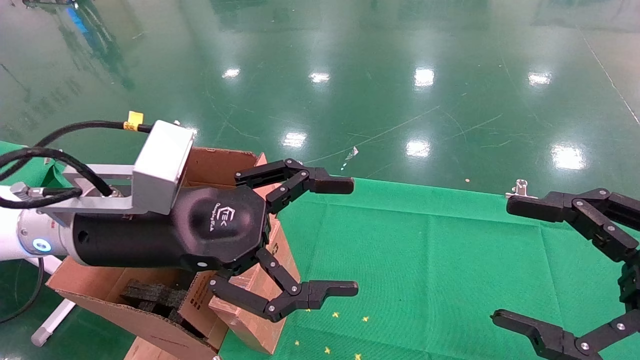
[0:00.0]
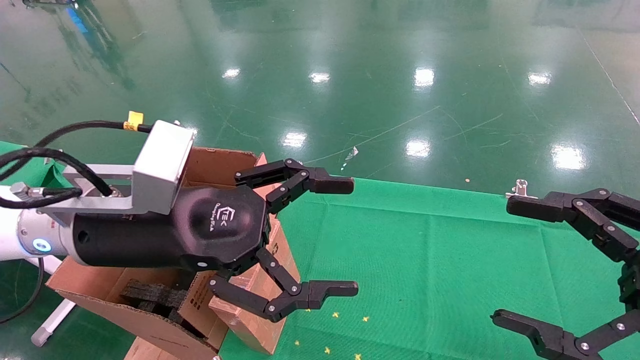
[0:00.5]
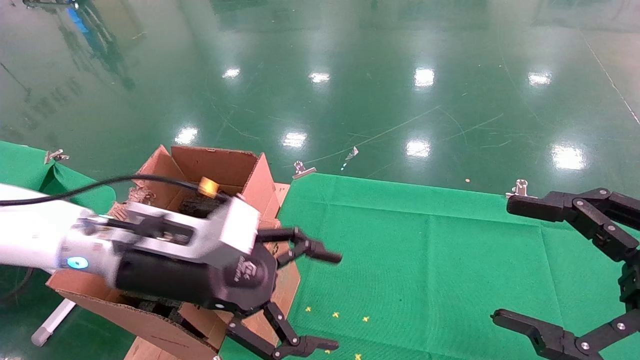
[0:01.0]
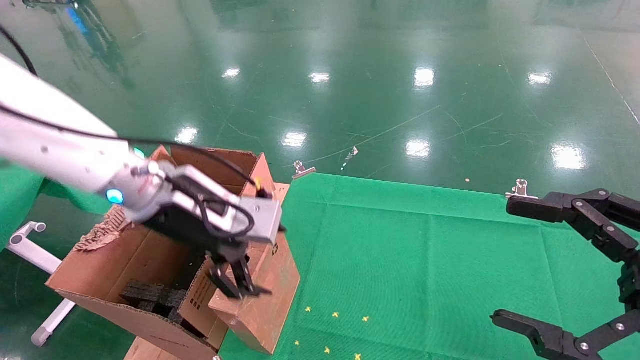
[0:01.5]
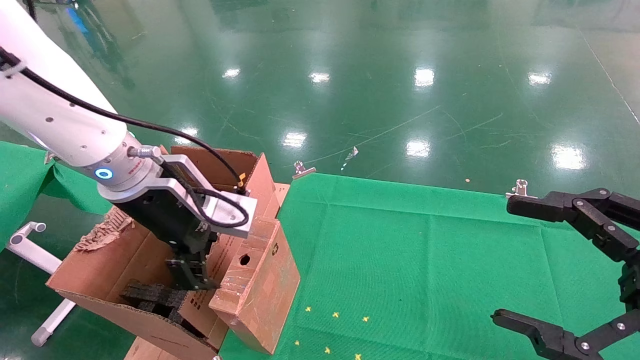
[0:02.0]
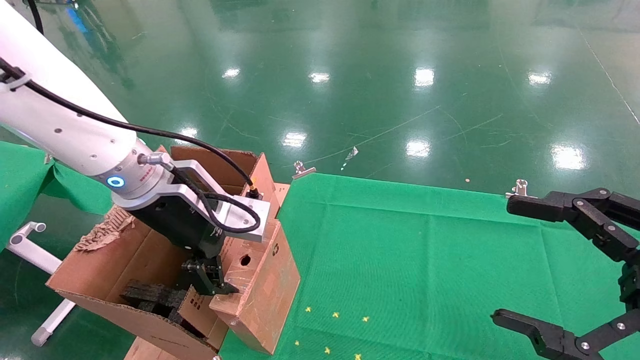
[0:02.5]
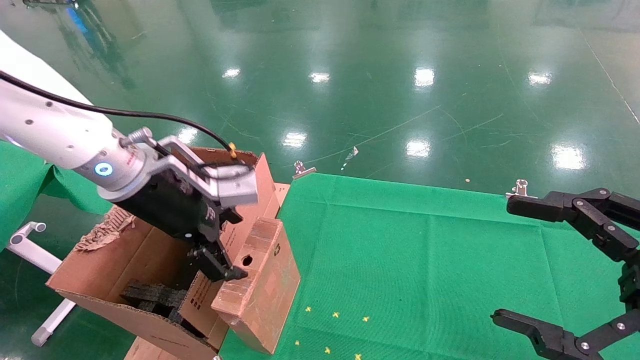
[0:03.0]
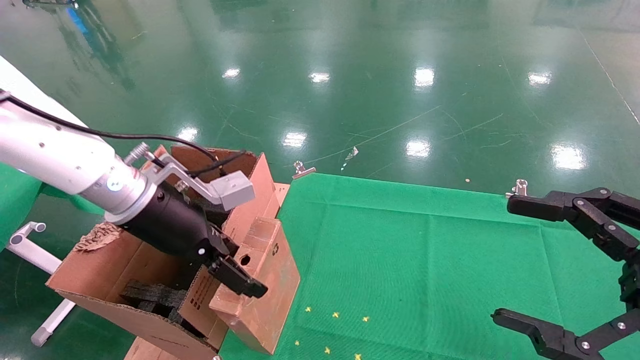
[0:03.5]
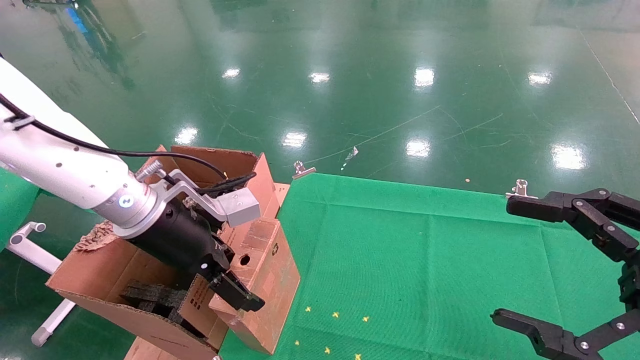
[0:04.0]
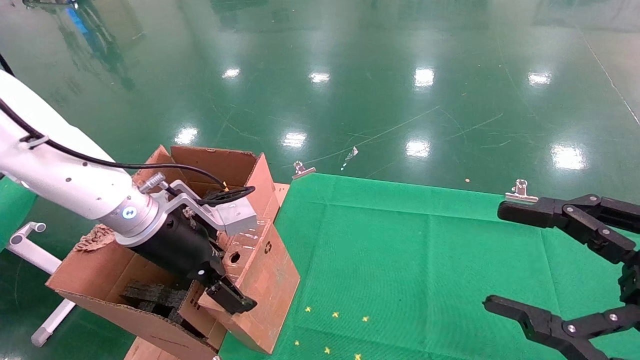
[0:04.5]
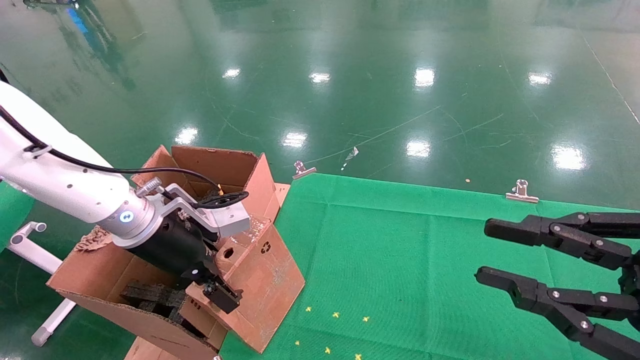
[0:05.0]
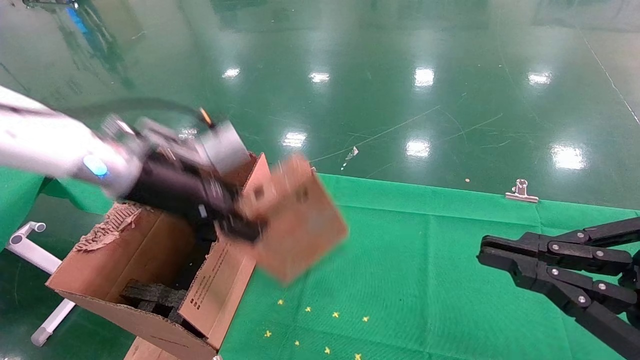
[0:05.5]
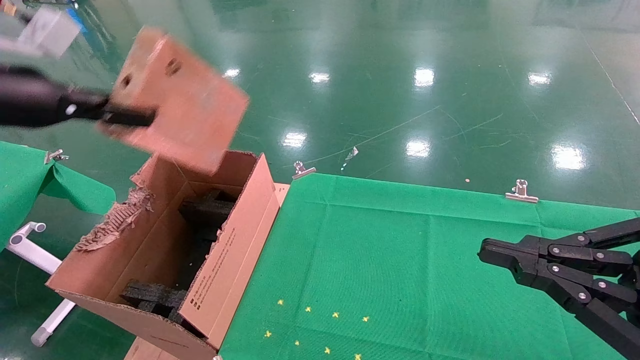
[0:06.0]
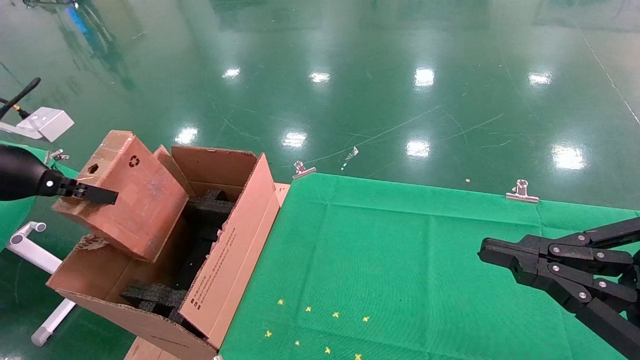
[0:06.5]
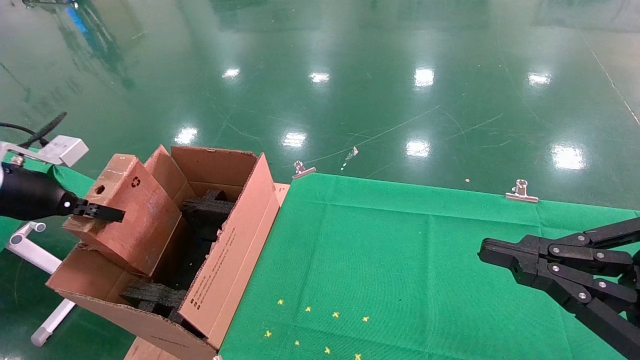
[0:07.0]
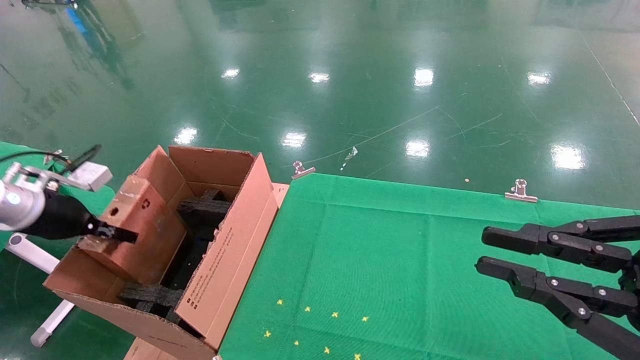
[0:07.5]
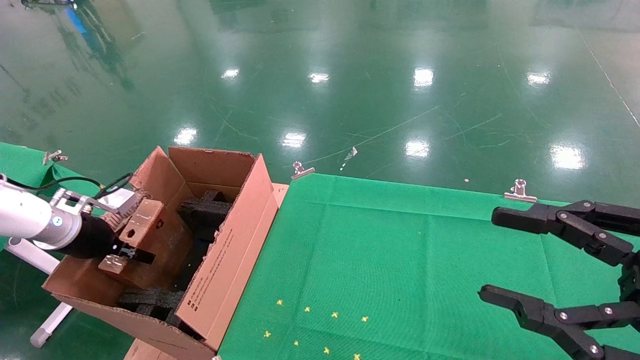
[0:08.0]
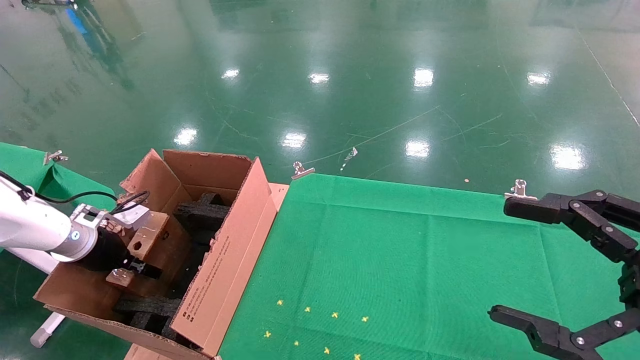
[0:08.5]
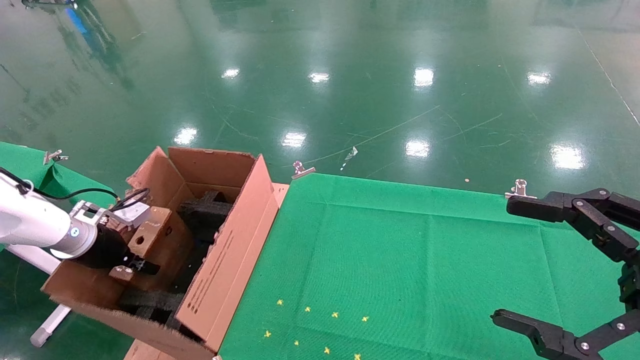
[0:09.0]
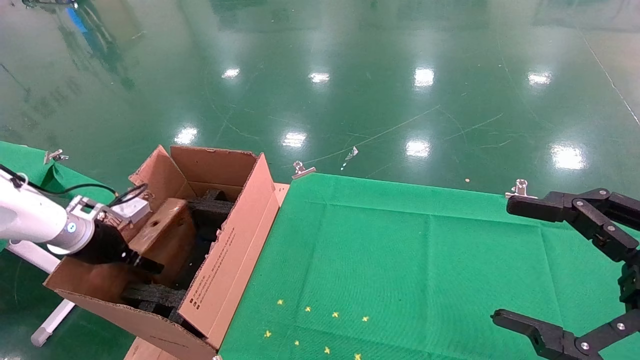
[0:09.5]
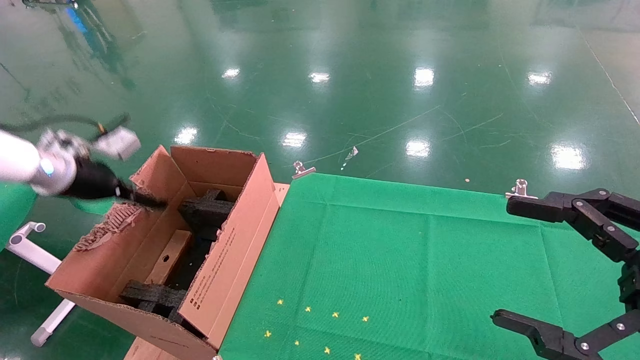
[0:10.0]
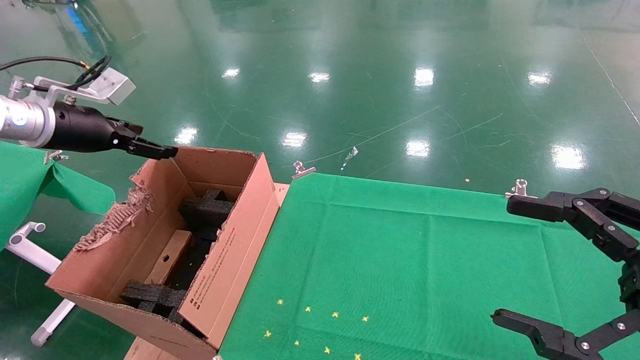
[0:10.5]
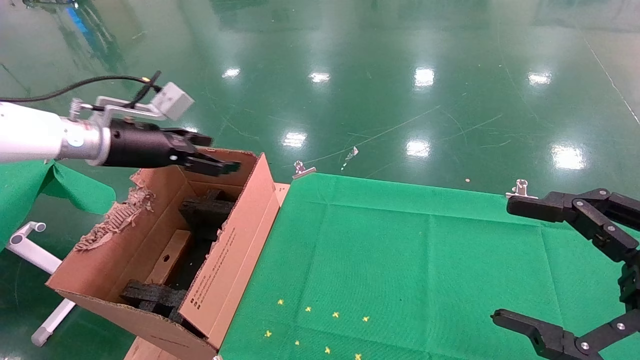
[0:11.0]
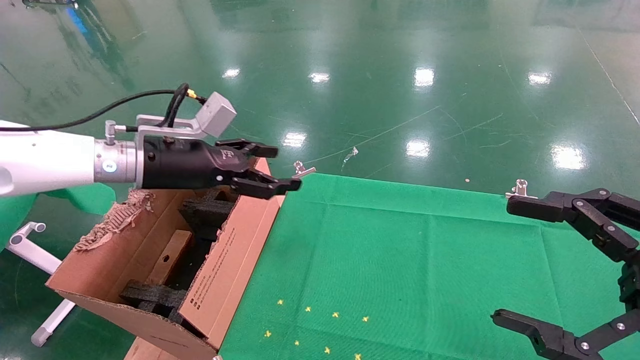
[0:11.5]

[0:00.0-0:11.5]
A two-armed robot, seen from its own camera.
Task of the whole recording: using a robotic arm to pick up a cardboard box and palace it the carton.
Step, 0:01.5 to 0:05.5: Pick up the mouse and the power cord paper box.
Step, 0:06.0 to 0:10.0: Place the mouse and the power cord paper box into the container.
0:00.0 to 0:02.0: The left gripper travels forward by roughly 5 cm.
0:02.0 to 0:04.0: The left gripper heads downward, covering some 5 cm.
0:04.0 to 0:06.0: The right gripper closes its fingers, while the left gripper heads to the left and upward, covering some 20 cm, and closes.
0:06.0 to 0:07.5: The left gripper goes roughly 20 cm downward and to the left.
0:07.5 to 0:09.5: The right gripper opens its fingers. Meanwhile the left gripper travels downward by approximately 5 cm, and opens up.
0:09.5 to 0:11.5: The left gripper shifts roughly 20 cm to the right and upward, and opens up.

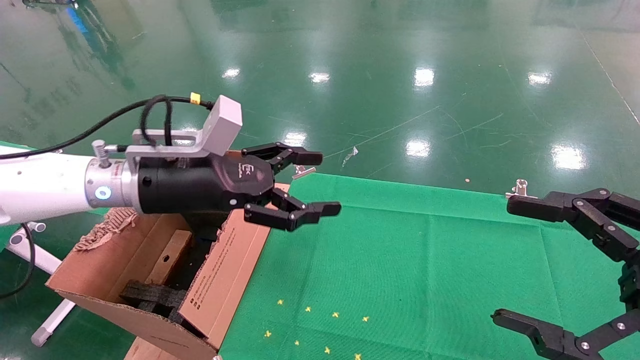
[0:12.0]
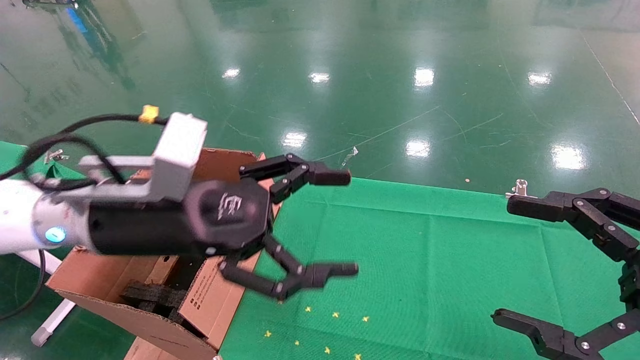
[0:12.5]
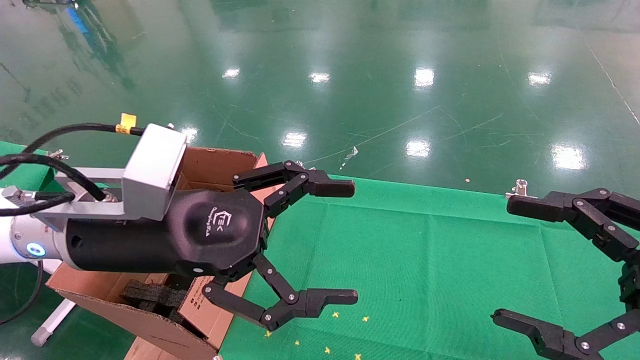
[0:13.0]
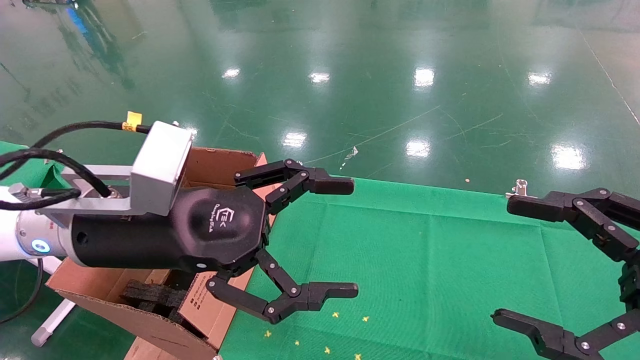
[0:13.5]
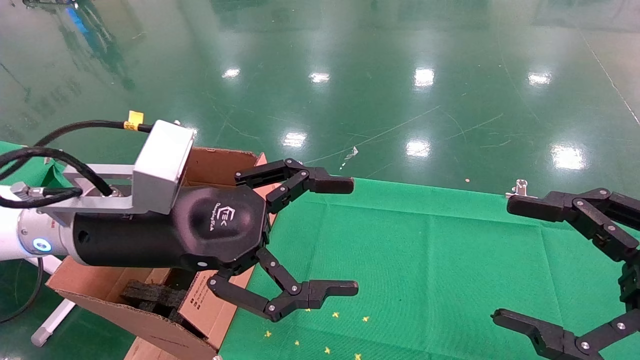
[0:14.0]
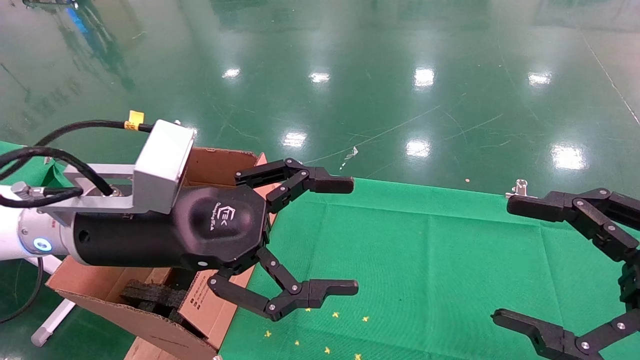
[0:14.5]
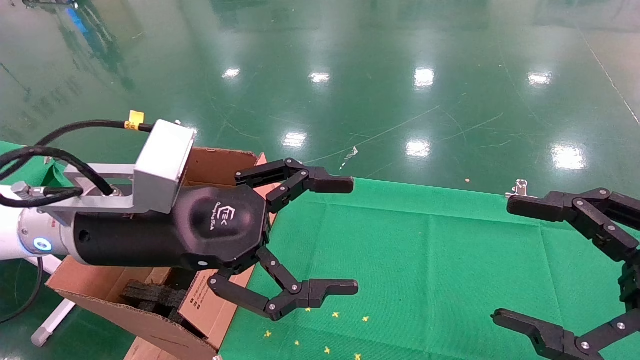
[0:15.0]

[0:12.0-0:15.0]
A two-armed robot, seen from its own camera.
Task of the whole recording: using a robotic arm to pick up a cardboard box and palace it the carton.
0:12.0 to 0:13.5: The left gripper travels backward by about 10 cm.
0:13.5 to 0:15.0: Both grippers stay about where they are.
